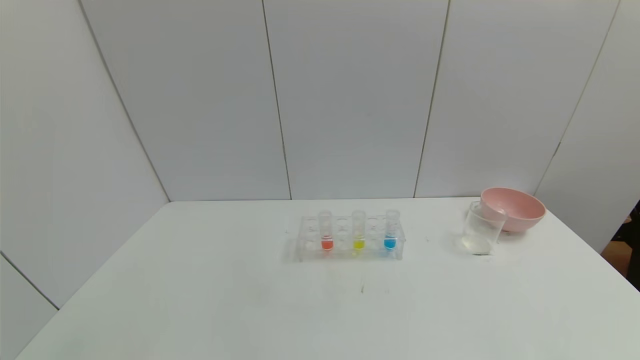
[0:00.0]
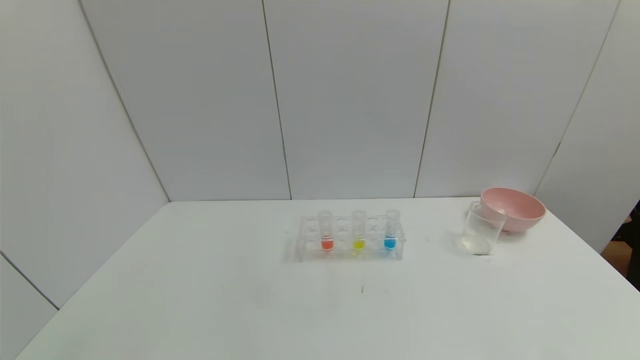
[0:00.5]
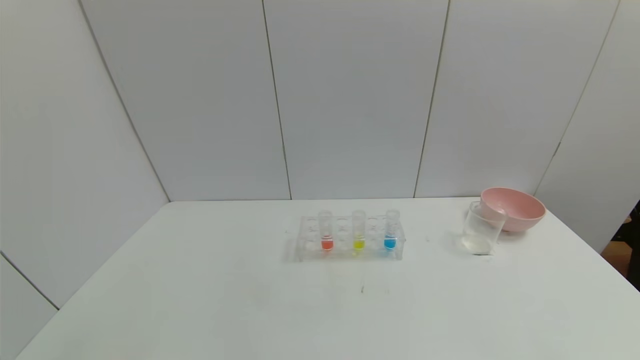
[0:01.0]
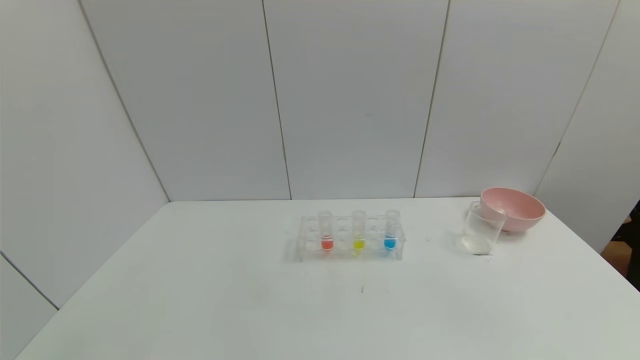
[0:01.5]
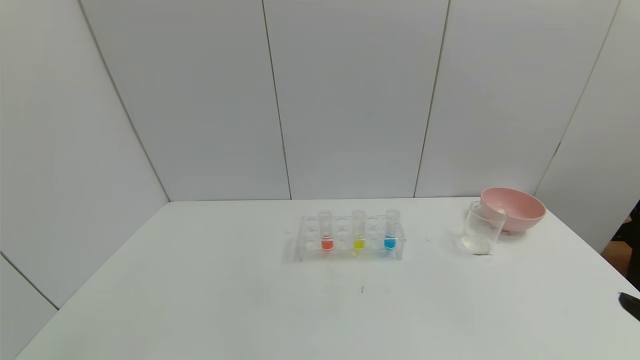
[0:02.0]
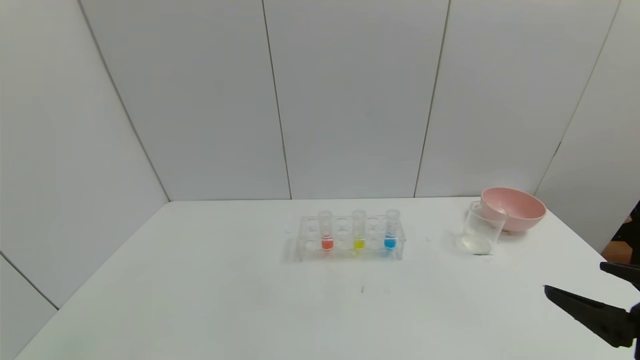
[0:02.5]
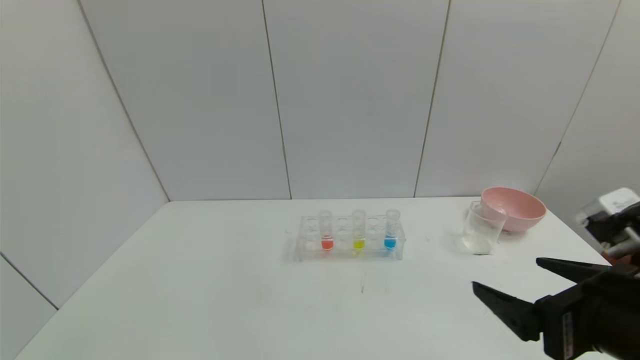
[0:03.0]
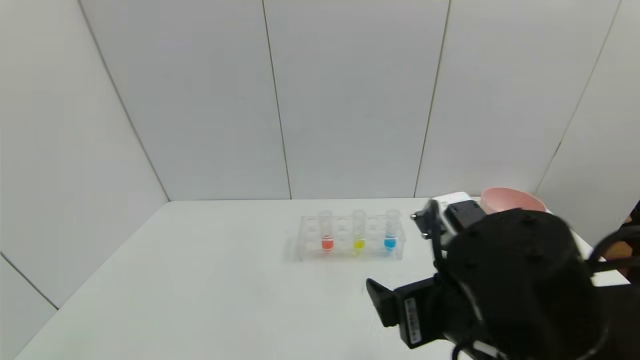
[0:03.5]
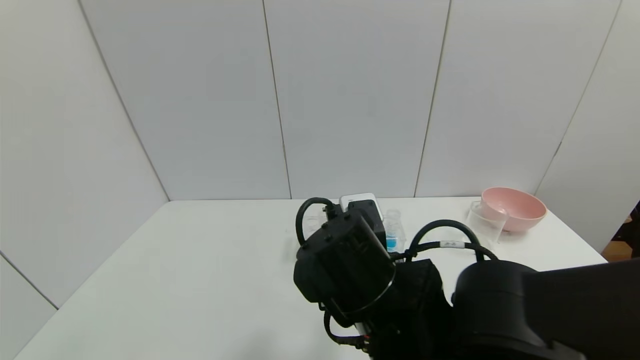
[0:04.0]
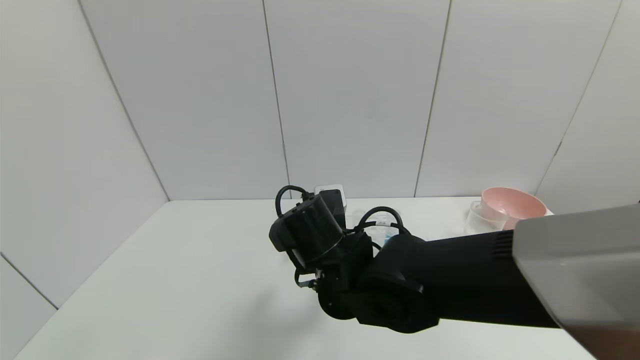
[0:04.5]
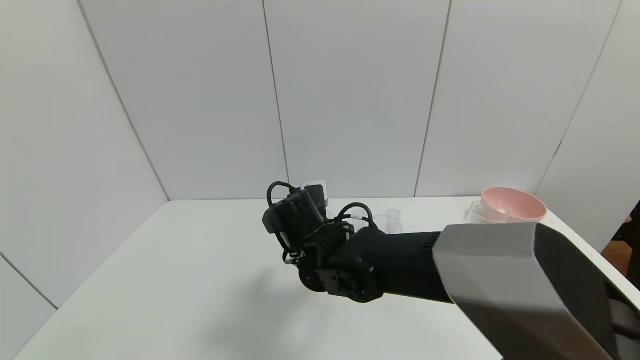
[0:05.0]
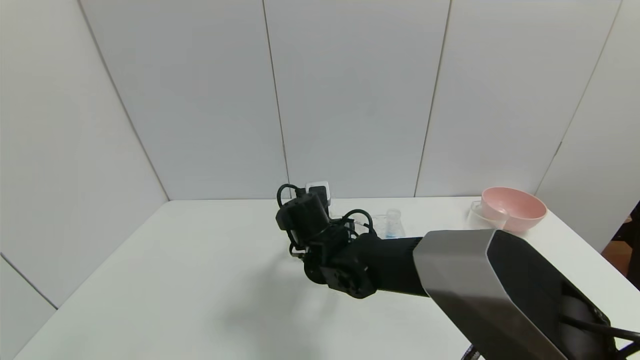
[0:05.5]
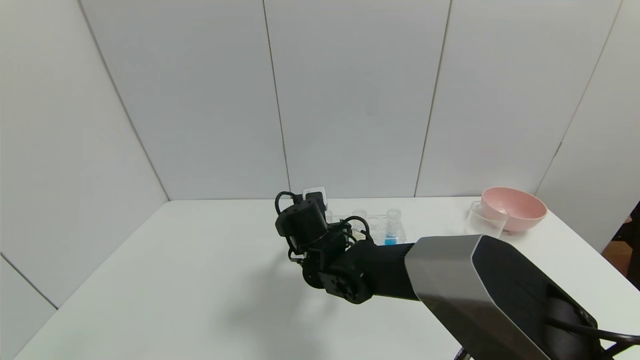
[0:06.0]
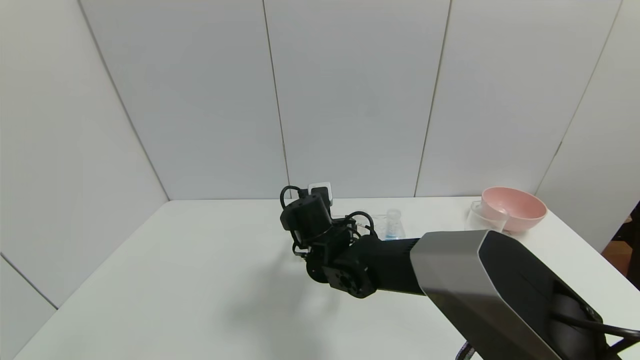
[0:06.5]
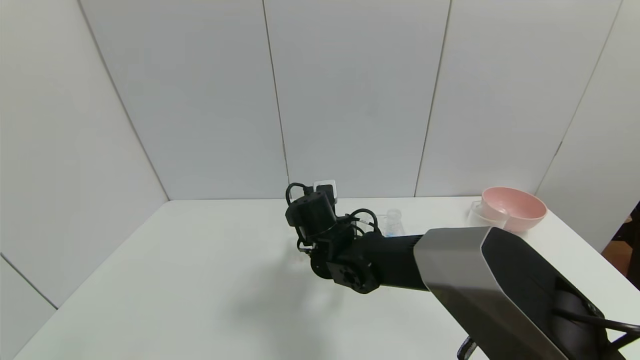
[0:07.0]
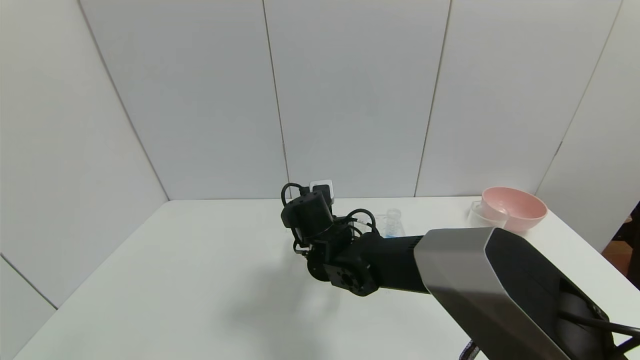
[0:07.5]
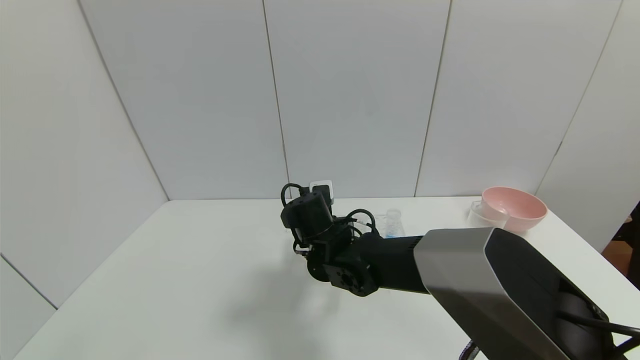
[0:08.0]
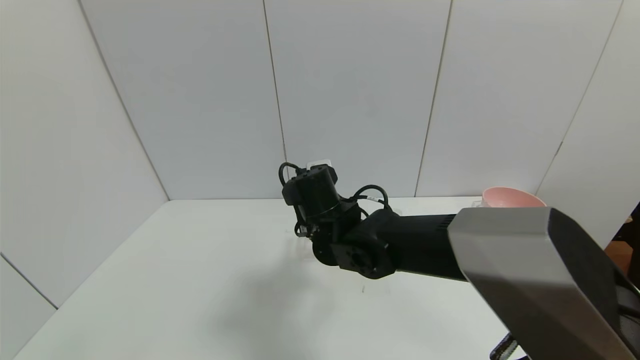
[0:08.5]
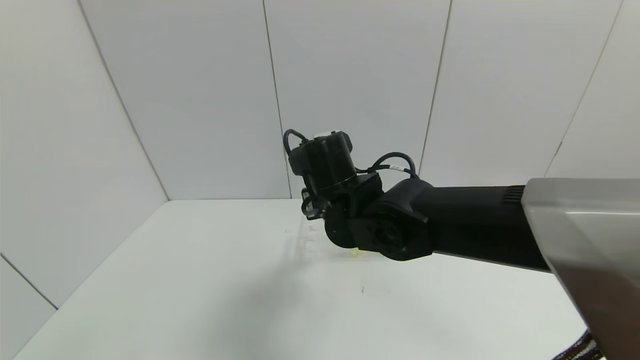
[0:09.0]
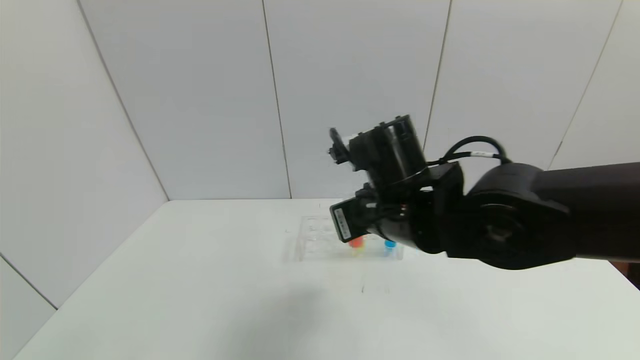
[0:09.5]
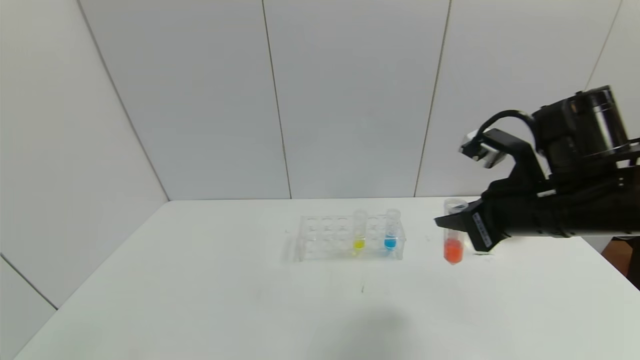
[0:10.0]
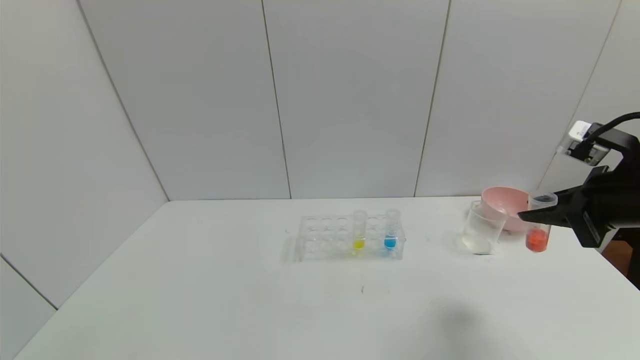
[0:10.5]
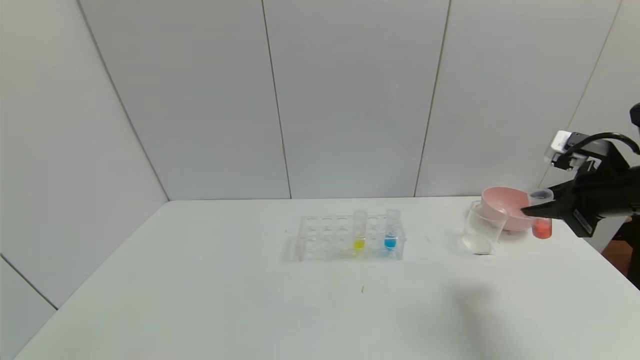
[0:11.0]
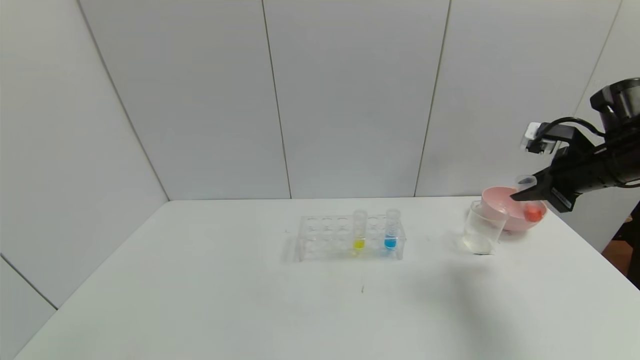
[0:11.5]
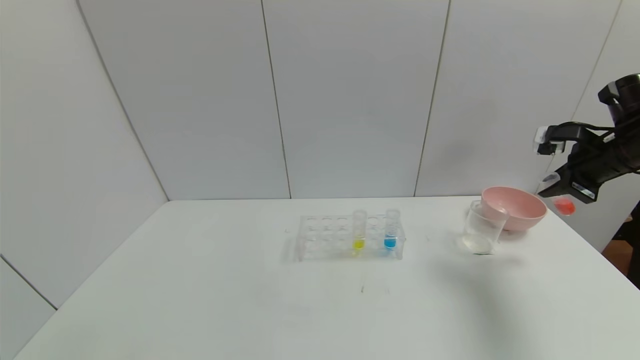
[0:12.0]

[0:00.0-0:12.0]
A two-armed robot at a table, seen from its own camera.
Task of the whole recording: pick up the test tube with yellow pigment and the test tube with red pigment by grippers and pour them into the beaker.
Step, 0:00.0 to 0:08.0: Grasp the red reagent with the right gripper.
0:02.0 to 0:04.0: The right gripper travels to the left and forward by some 35 cm.
0:04.0 to 0:06.0: The right gripper shifts roughly 20 cm forward, downward and to the left.
0:06.0 to 0:08.0: The right gripper closes.
0:08.0 to 0:10.0: The right gripper moves to the right, upward and backward, approximately 30 cm.
0:10.0 to 0:12.0: The right gripper travels to the right and forward by approximately 20 cm.

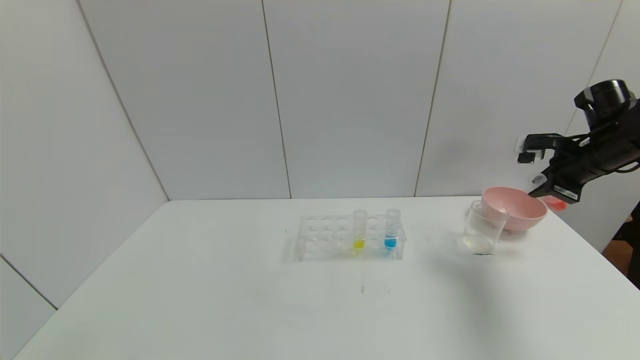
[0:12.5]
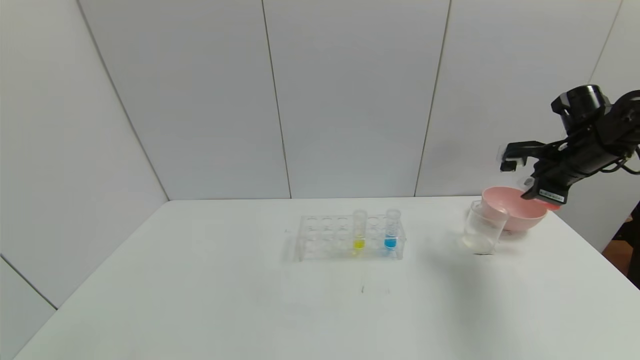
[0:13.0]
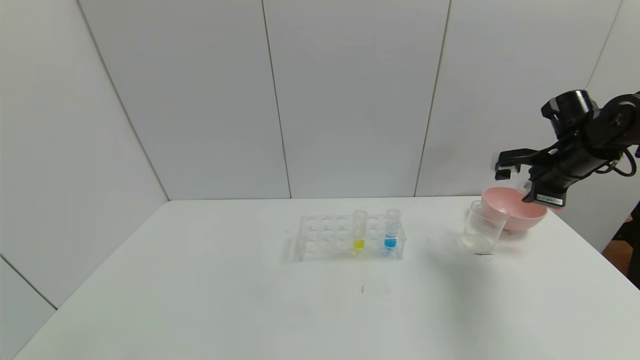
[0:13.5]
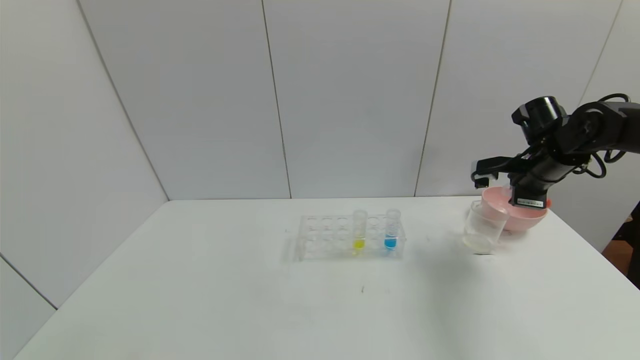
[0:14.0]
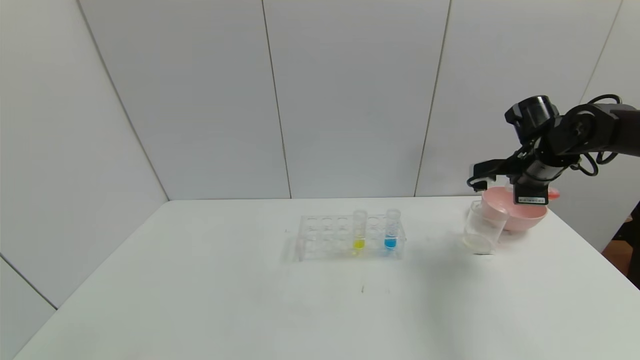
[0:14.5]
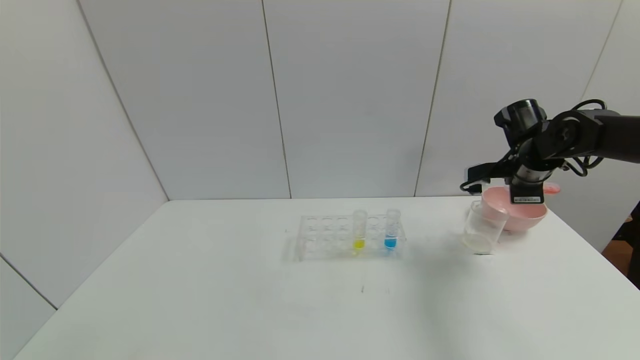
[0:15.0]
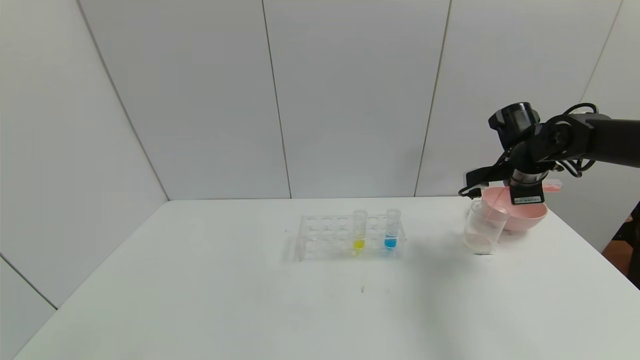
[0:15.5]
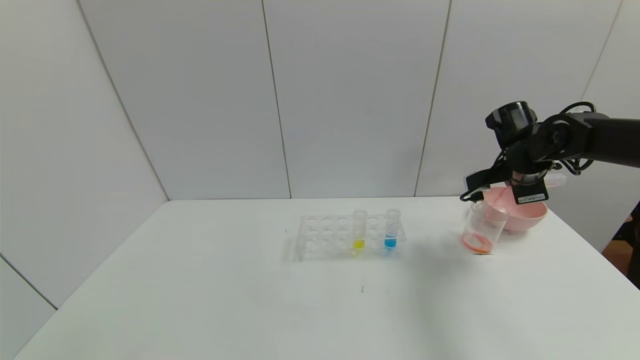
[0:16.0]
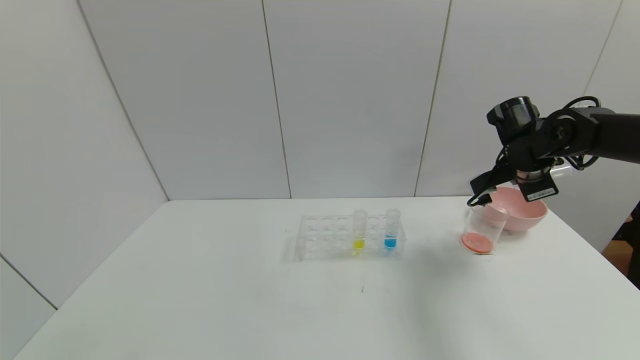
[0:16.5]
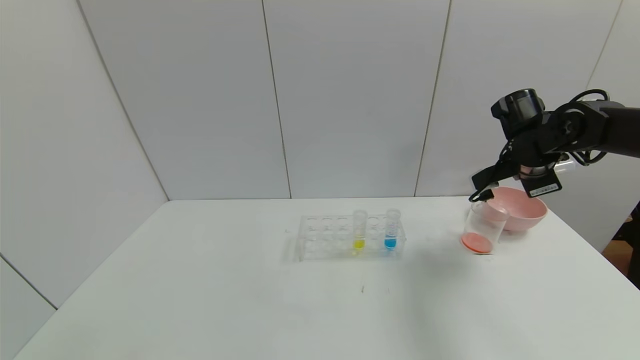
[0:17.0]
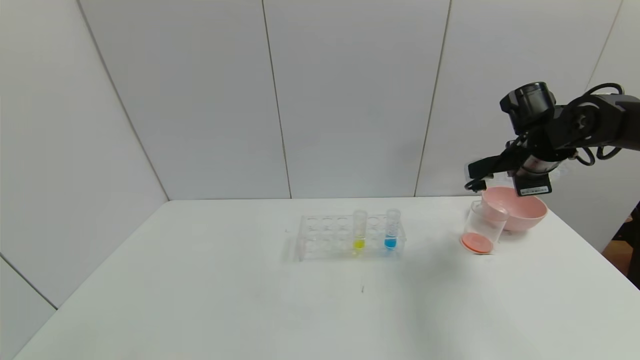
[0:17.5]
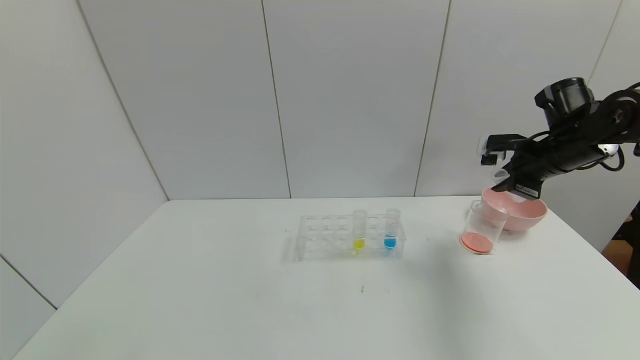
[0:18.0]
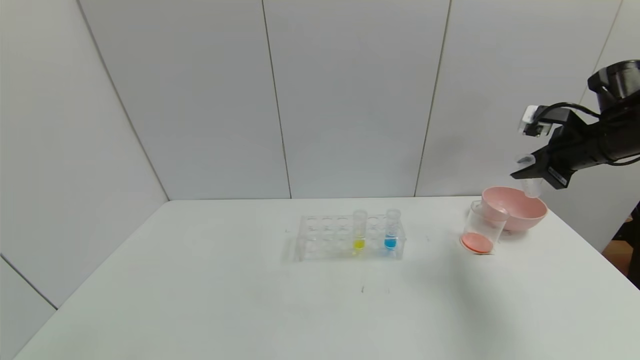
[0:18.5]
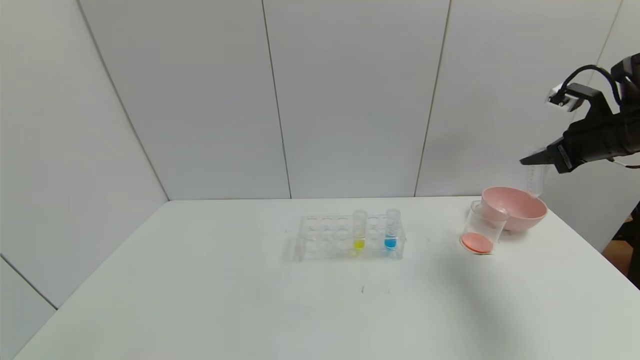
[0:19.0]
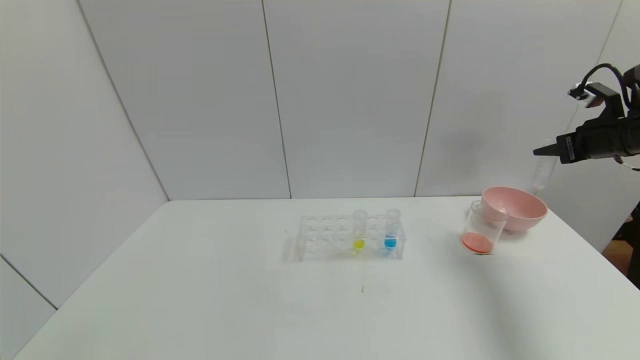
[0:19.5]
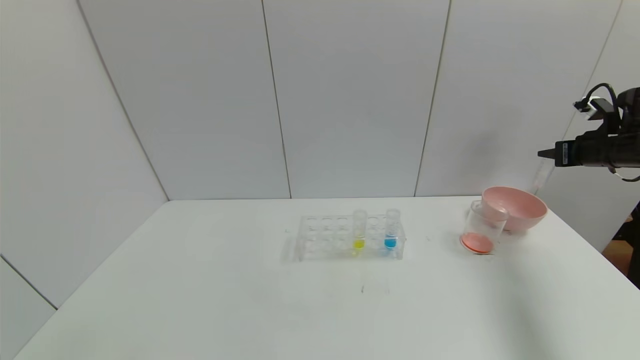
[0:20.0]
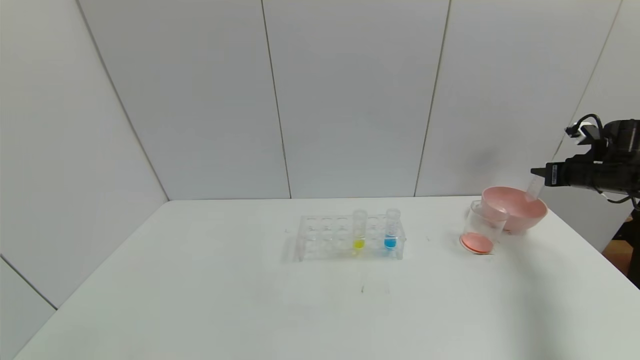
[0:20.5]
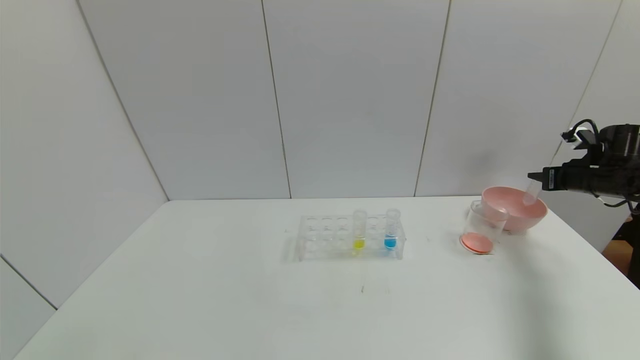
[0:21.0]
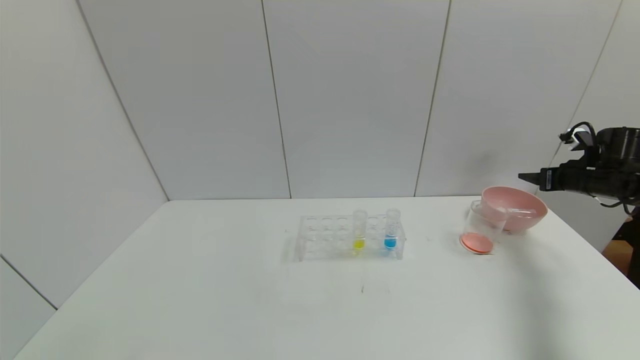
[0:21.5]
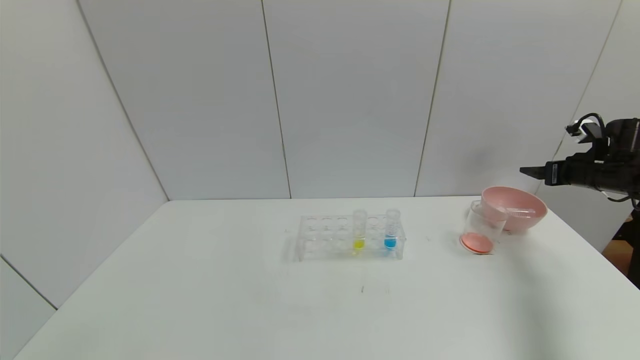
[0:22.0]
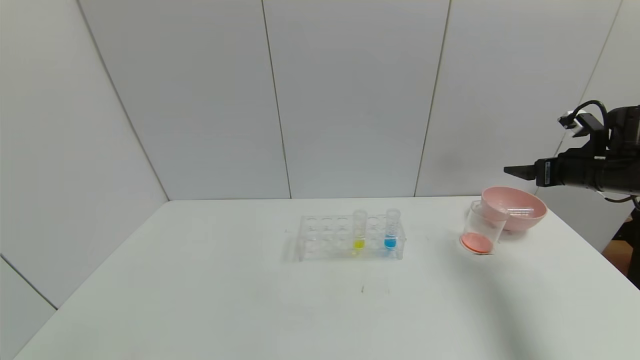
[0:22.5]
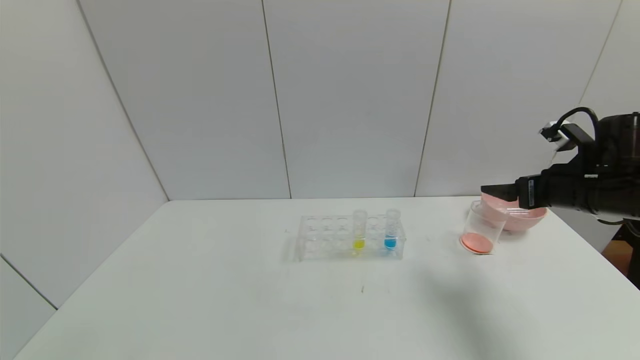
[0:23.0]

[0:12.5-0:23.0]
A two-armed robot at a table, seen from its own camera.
Task of the whole recording: pick up the test tube with yellow pigment and the test tube with red pigment by grippers and pour them into the beaker.
Step, 0:12.5 to 0:17.0: Pour the red reagent into the graduated cylinder with the right gripper.
Step, 0:17.5 to 0:21.0: Place the test tube into the bowl with the right gripper.
0:12.5 to 0:14.5: The right gripper moves to the left, approximately 5 cm.
0:16.5 to 0:19.0: The right gripper heads to the right and upward, covering roughly 10 cm.
0:19.0 to 0:21.0: The right gripper travels downward, to the right and forward by approximately 15 cm.
0:21.0 to 0:23.0: The right gripper shifts some 20 cm to the left and backward, and opens up.
